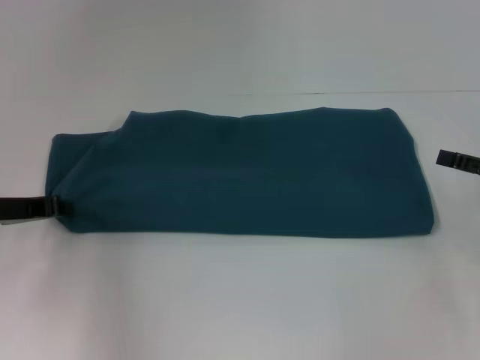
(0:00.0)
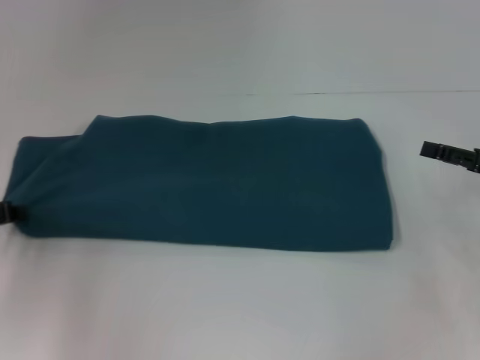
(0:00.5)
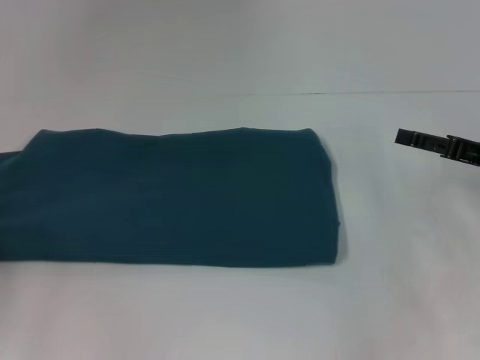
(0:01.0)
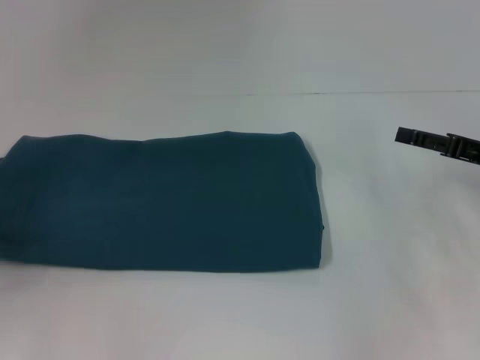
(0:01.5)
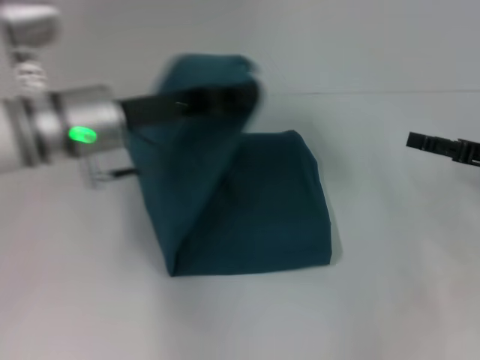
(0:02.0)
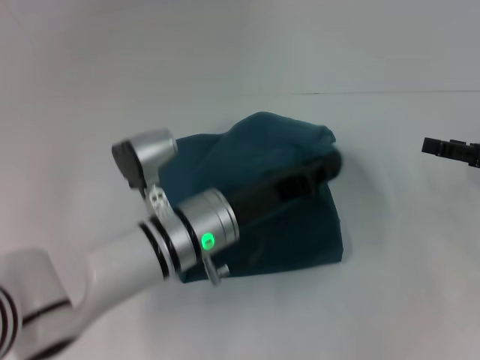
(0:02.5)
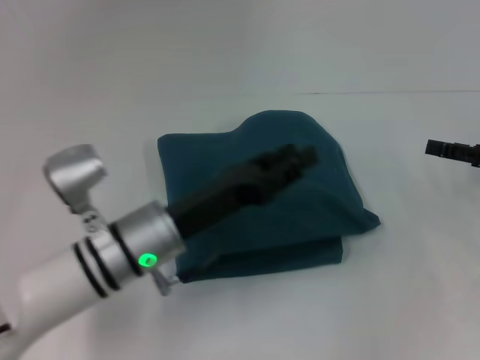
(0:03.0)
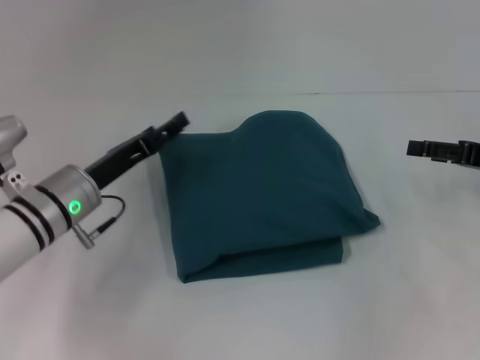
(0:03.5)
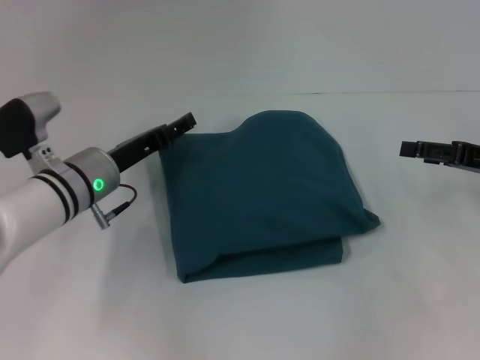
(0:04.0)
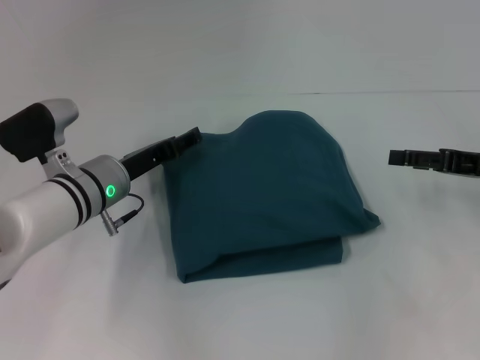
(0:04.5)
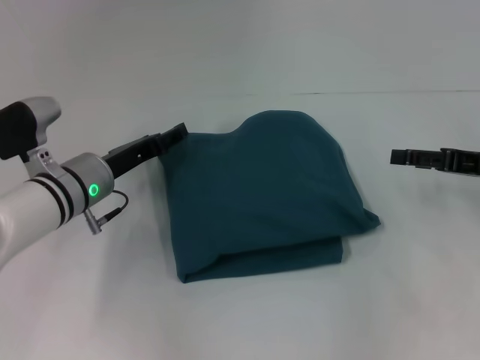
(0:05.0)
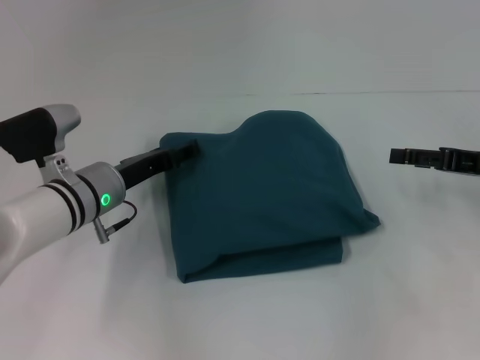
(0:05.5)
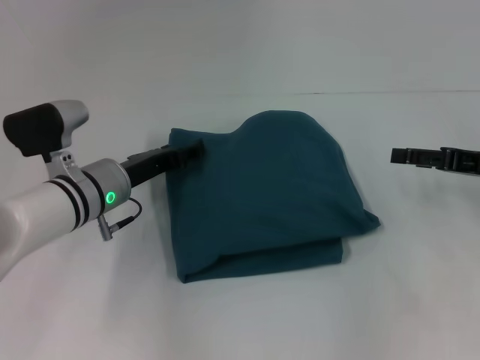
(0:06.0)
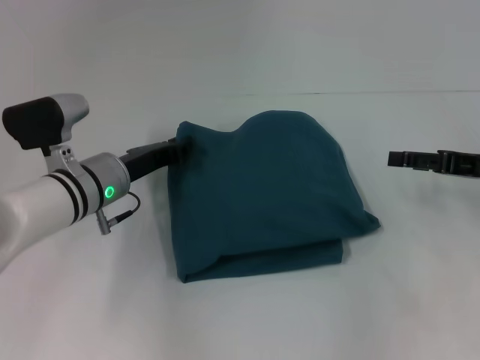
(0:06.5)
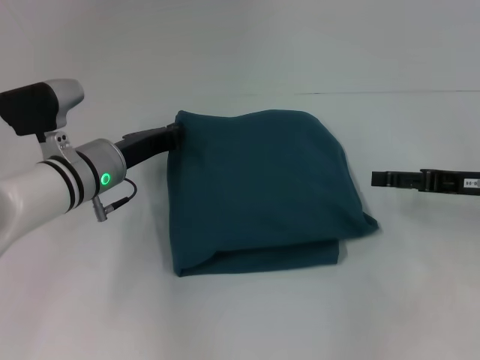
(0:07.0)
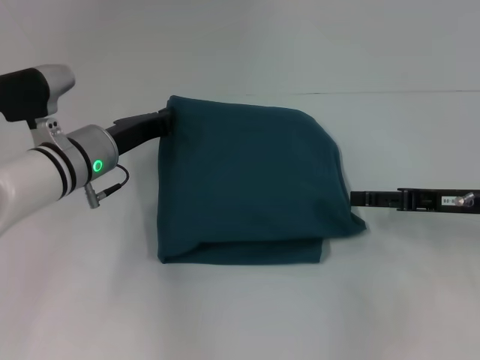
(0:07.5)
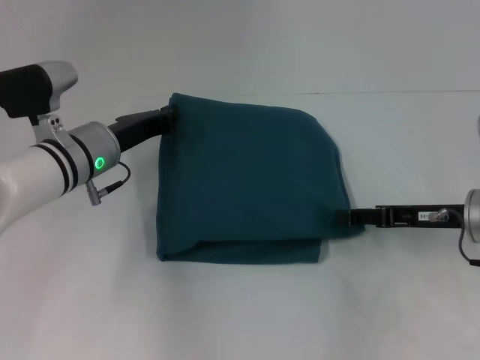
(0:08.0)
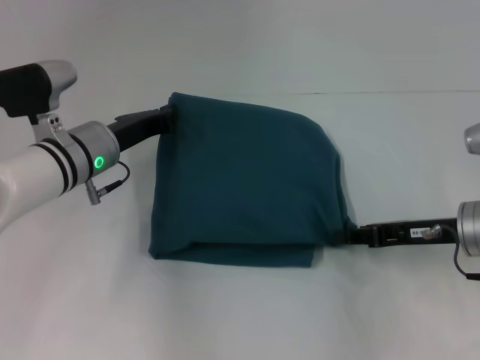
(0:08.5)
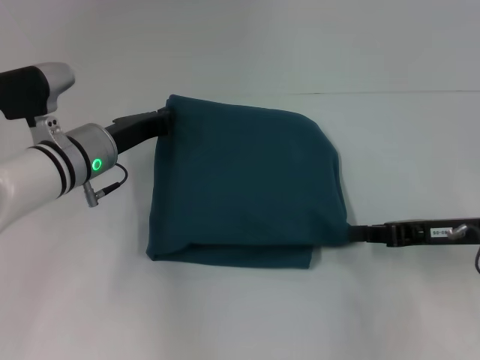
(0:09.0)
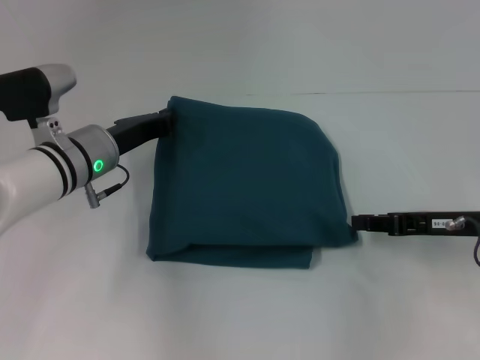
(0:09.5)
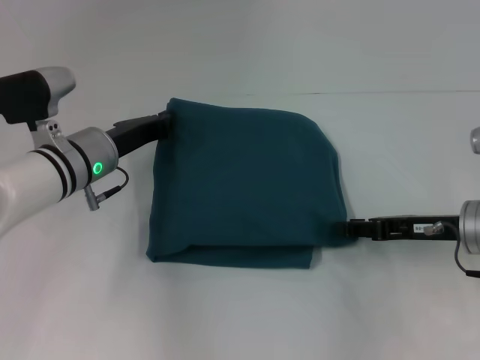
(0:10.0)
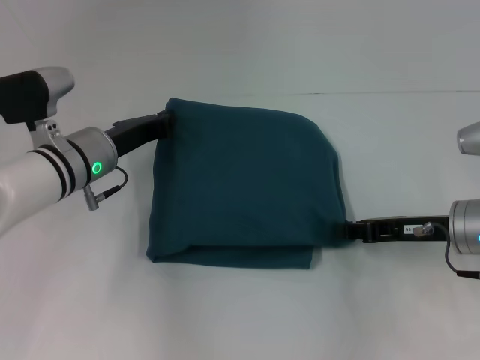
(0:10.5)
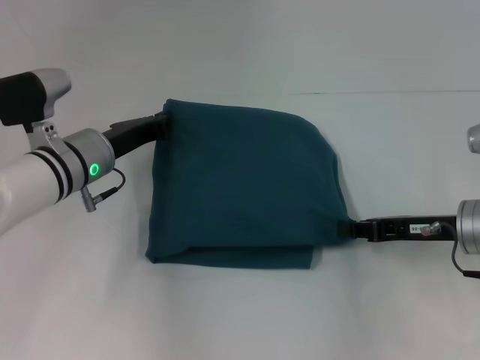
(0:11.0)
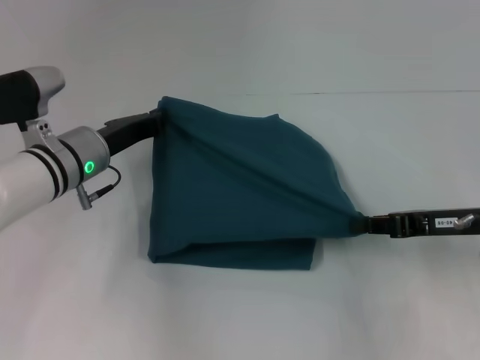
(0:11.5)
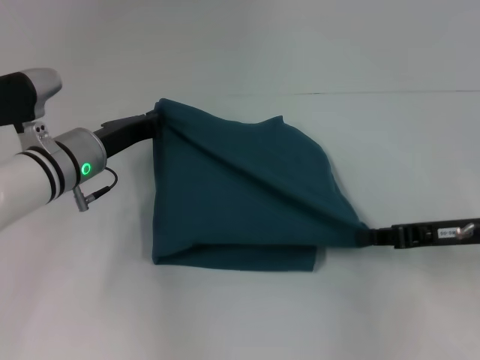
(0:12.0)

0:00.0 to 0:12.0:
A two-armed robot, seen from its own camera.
Step, 0:00.0 to 0:02.5: Fold the clothes to the left.
0:00.0 to 0:02.0: The left gripper heads to the right and upward, covering approximately 15 cm.
0:02.0 to 0:04.0: The left gripper travels downward by about 10 cm, goes to the right and returns, some 10 cm each way, and opens.
0:04.0 to 0:06.0: There are only small adjustments of the grippers.
0:06.0 to 0:08.0: The left gripper closes, while the right gripper heads to the left, covering roughly 5 cm.
0:08.0 to 0:10.0: The right gripper closes its fingers.
0:10.0 to 0:12.0: The right gripper closes.

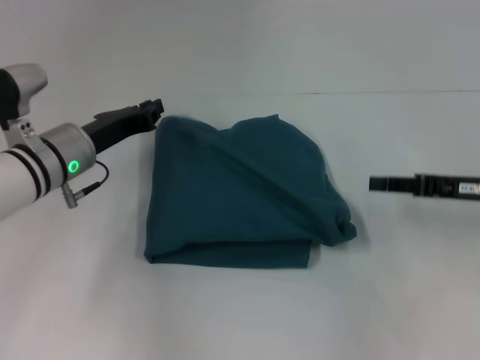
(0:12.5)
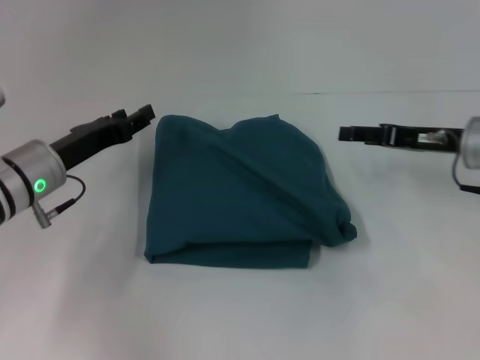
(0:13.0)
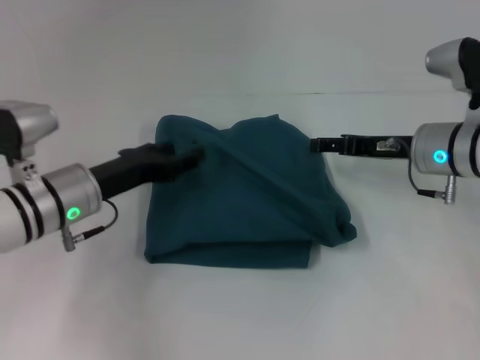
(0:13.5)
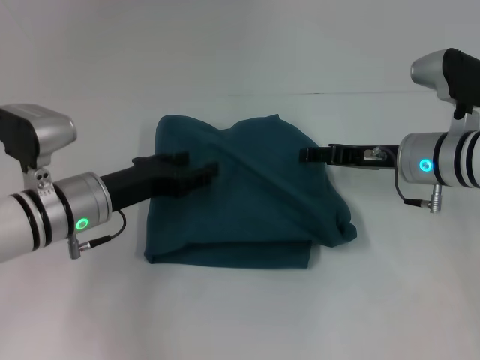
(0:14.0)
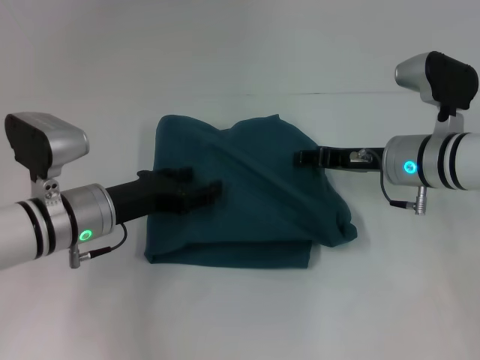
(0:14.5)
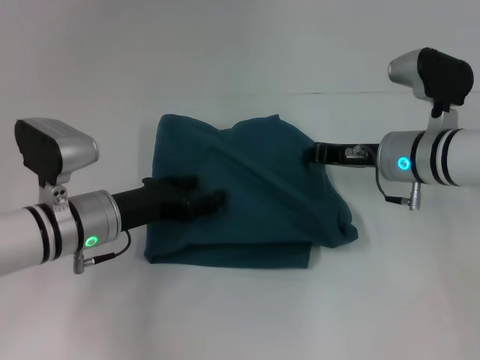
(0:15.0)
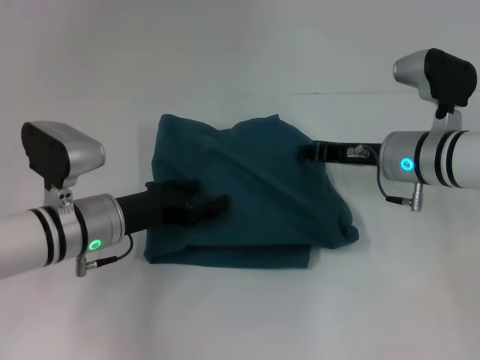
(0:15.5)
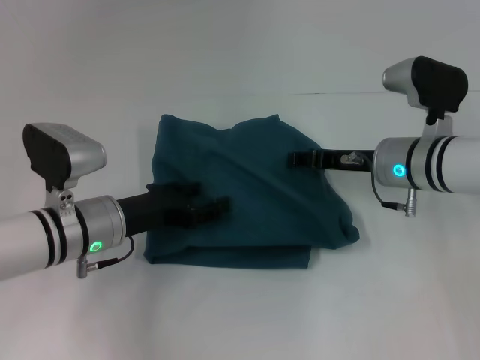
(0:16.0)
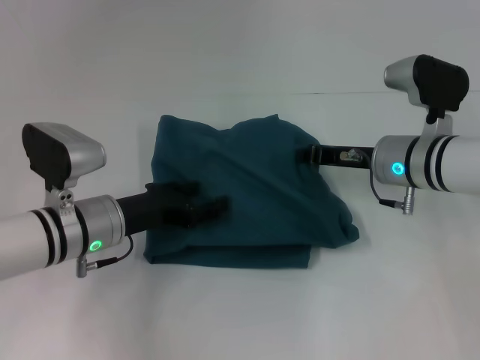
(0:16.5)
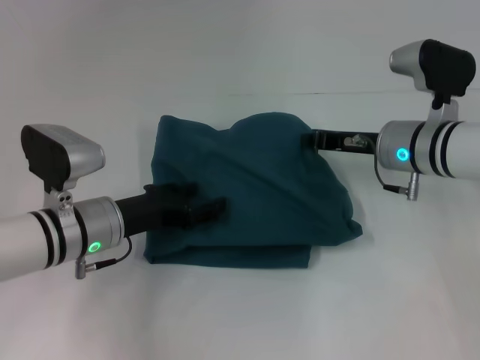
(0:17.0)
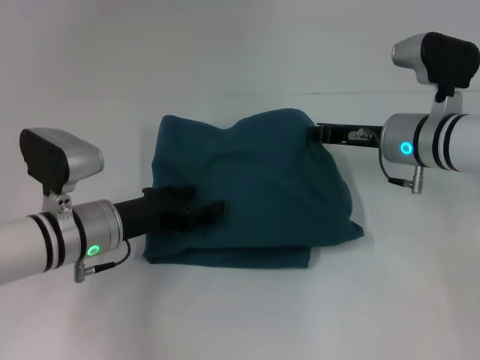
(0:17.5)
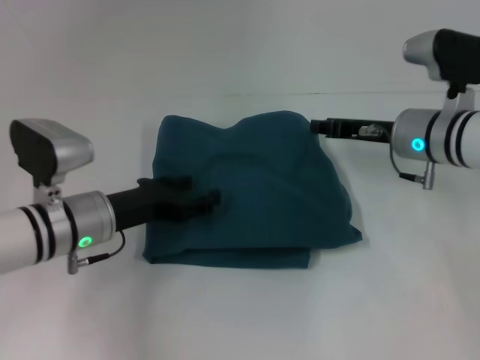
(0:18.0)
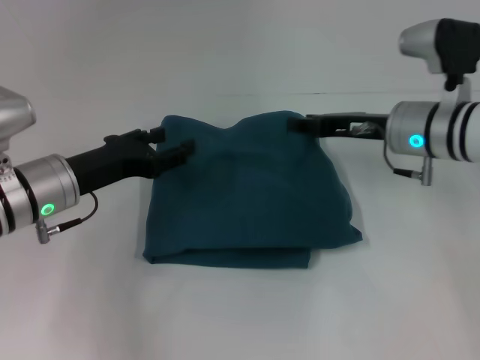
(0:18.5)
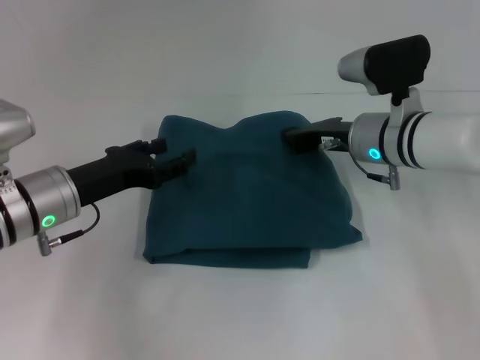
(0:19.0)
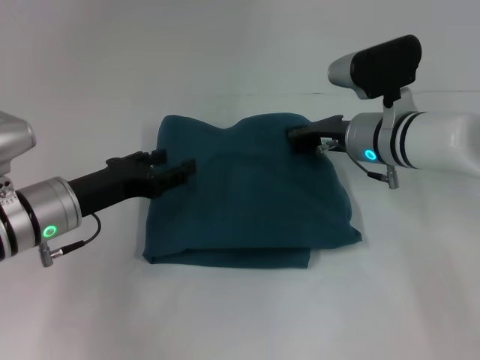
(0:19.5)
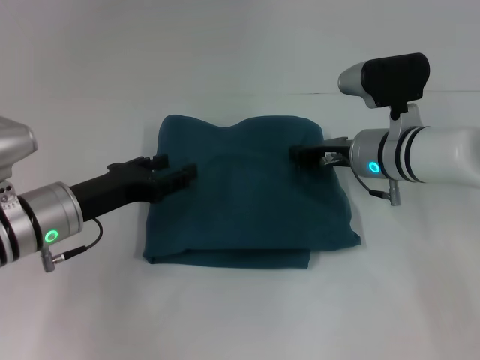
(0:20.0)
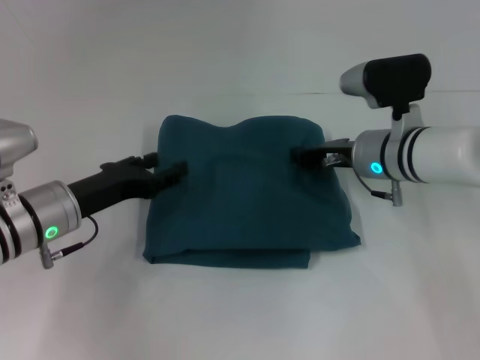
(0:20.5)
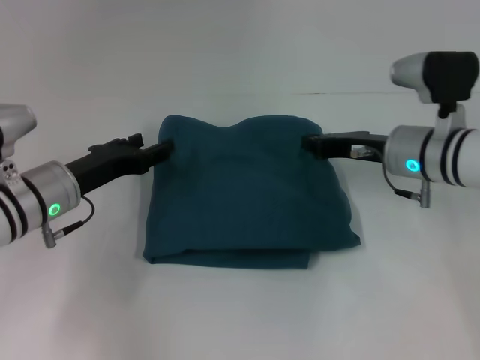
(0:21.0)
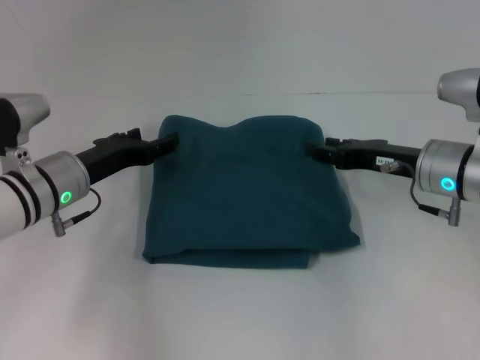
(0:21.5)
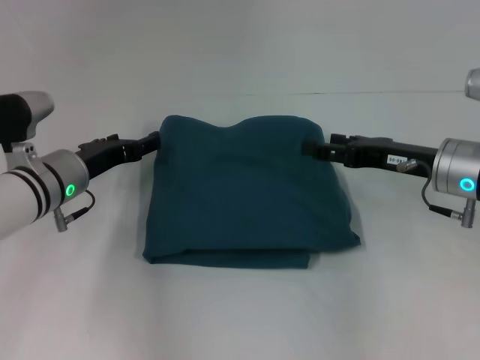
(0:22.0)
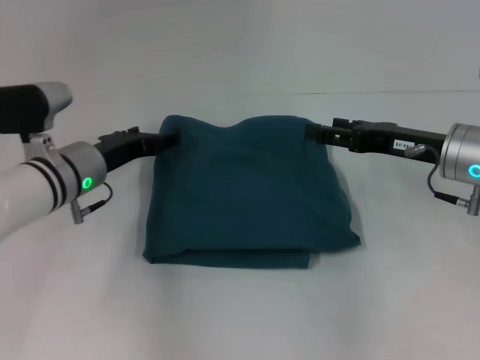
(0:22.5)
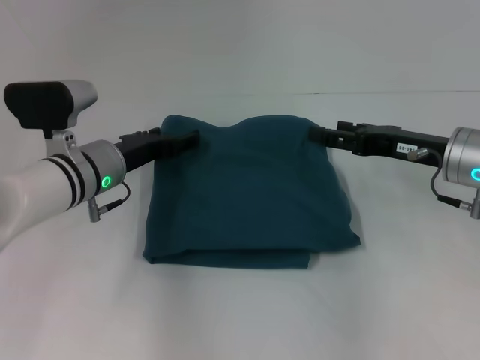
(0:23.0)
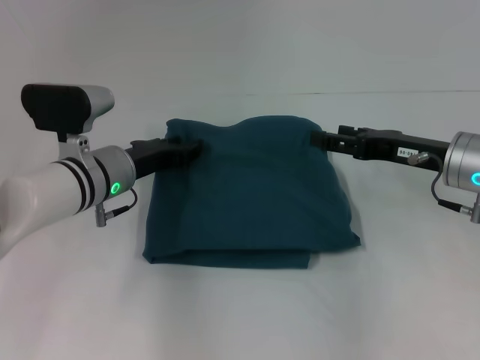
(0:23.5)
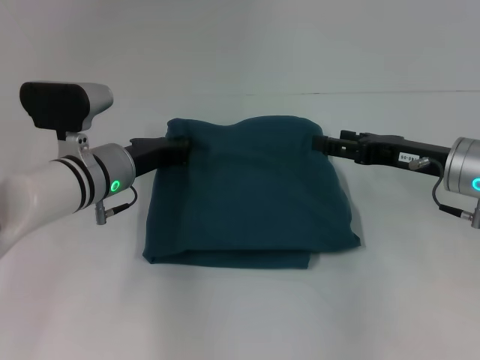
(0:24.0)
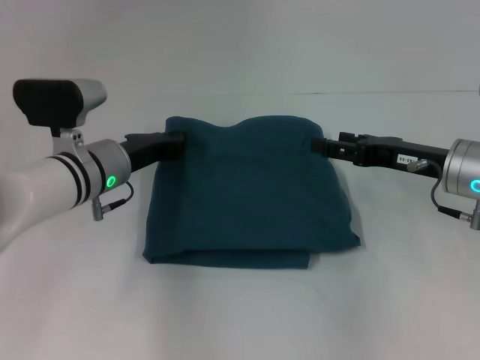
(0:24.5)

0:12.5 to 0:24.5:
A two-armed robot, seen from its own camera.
0:12.5 to 0:14.5: The right gripper heads to the left and forward, covering about 15 cm, and opens. Meanwhile the left gripper heads backward, covering approximately 5 cm, and opens its fingers.
0:14.5 to 0:16.5: The right gripper closes its fingers.
0:16.5 to 0:18.5: The left gripper changes place by approximately 5 cm.
0:18.5 to 0:20.5: The right gripper closes its fingers.
0:20.5 to 0:22.5: The right gripper moves to the right, some 10 cm, and opens its fingers, while the left gripper travels forward by some 5 cm.
0:22.5 to 0:24.5: The left gripper closes its fingers.

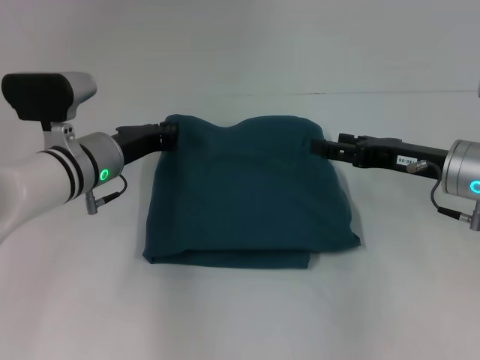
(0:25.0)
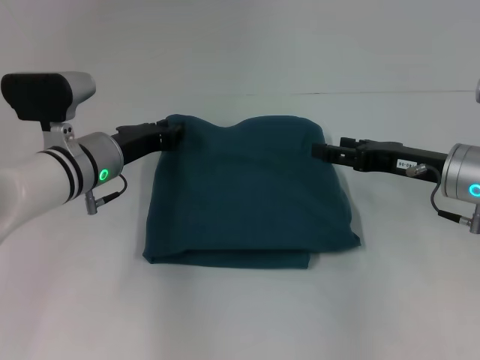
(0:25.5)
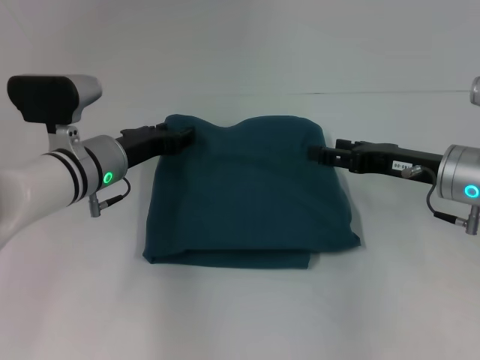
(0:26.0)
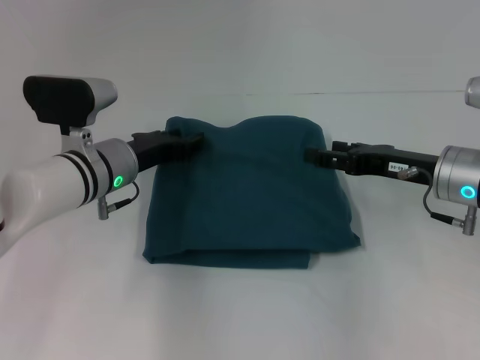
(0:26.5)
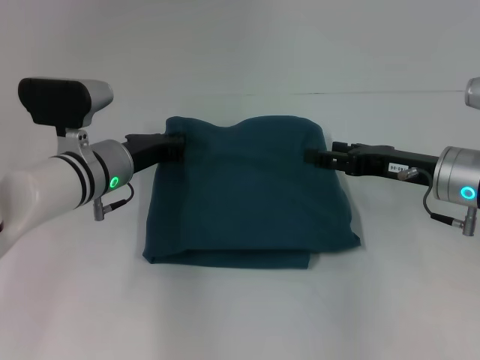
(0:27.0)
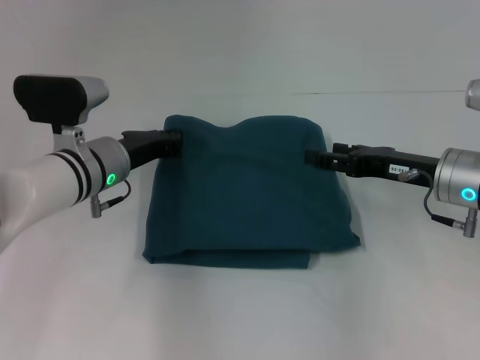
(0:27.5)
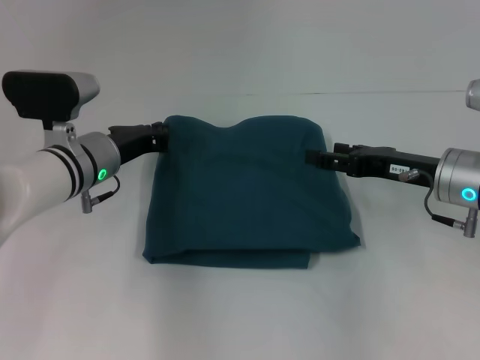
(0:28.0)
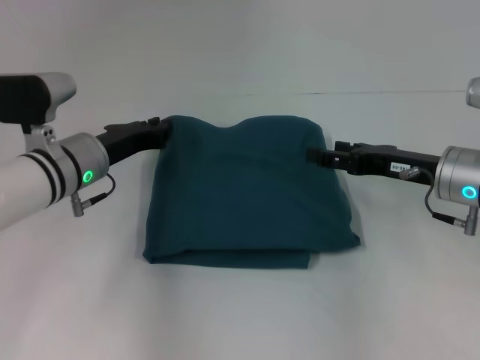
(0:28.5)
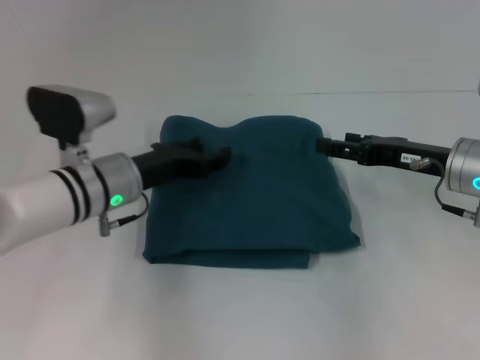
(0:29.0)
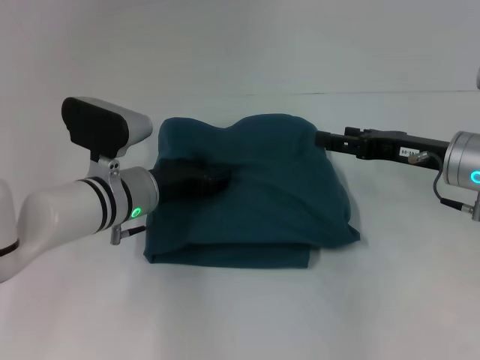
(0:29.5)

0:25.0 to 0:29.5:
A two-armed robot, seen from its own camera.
0:25.0 to 0:27.0: The left gripper opens, then closes once more.
0:27.0 to 0:29.5: The left gripper opens up.
